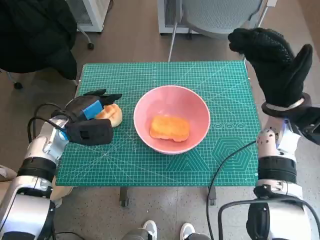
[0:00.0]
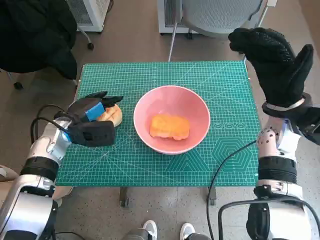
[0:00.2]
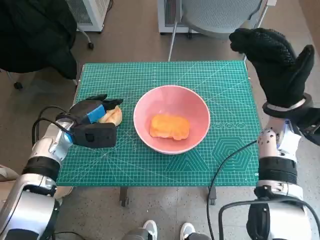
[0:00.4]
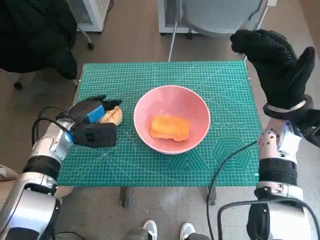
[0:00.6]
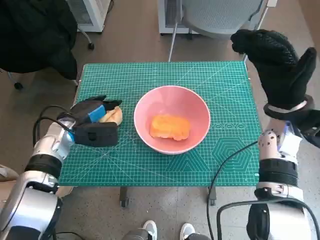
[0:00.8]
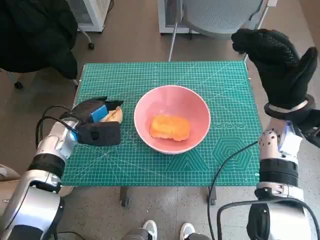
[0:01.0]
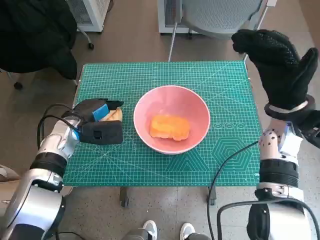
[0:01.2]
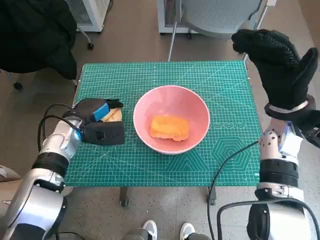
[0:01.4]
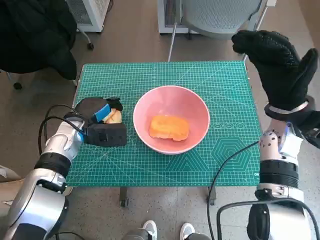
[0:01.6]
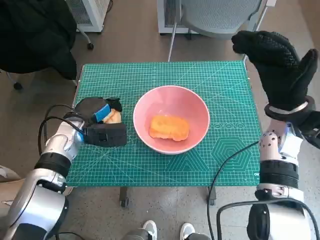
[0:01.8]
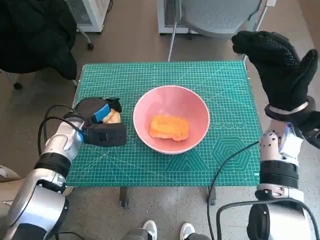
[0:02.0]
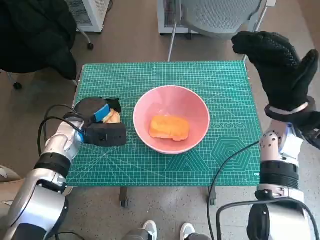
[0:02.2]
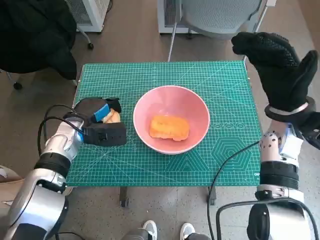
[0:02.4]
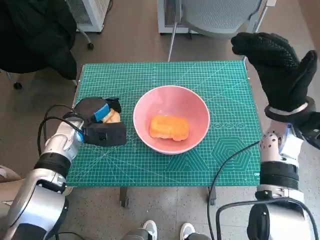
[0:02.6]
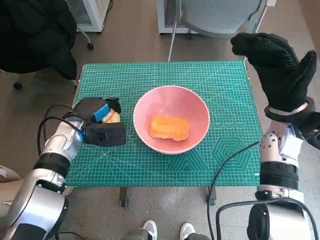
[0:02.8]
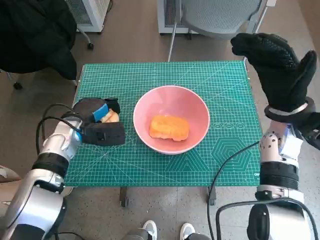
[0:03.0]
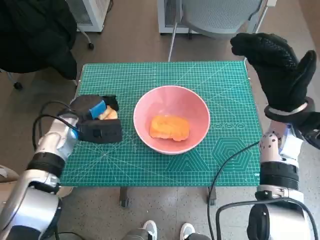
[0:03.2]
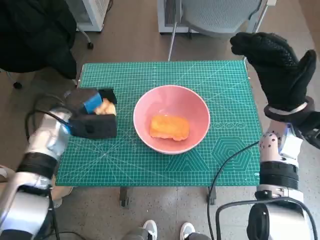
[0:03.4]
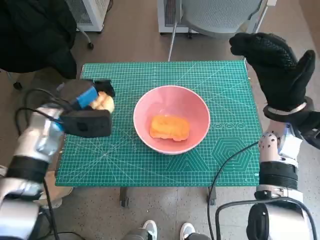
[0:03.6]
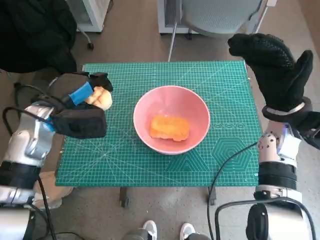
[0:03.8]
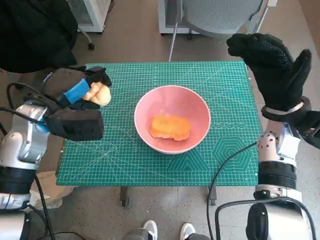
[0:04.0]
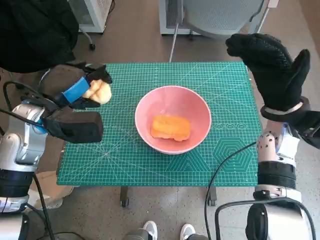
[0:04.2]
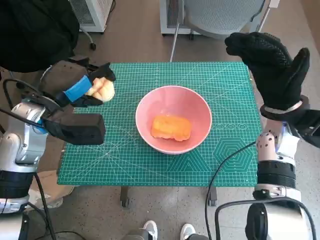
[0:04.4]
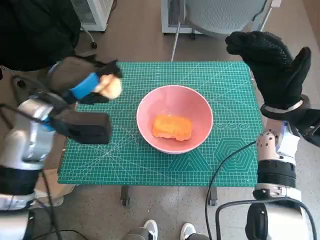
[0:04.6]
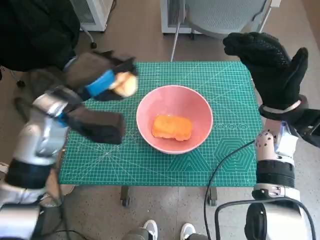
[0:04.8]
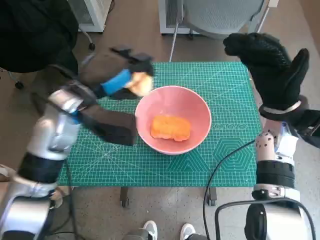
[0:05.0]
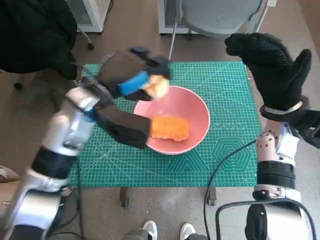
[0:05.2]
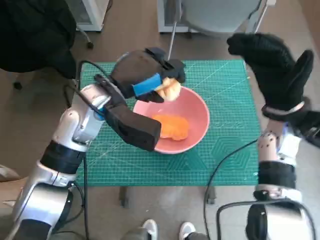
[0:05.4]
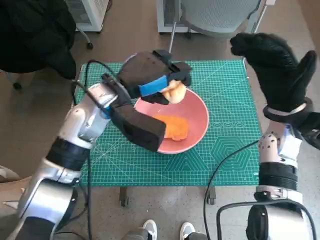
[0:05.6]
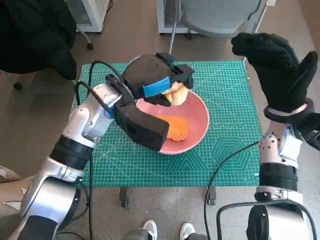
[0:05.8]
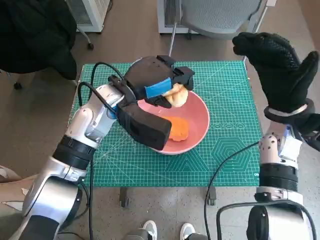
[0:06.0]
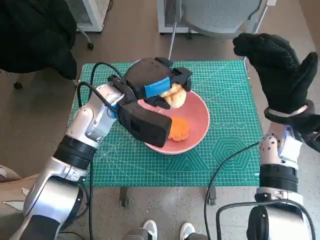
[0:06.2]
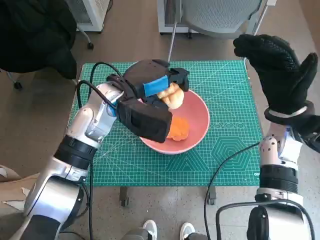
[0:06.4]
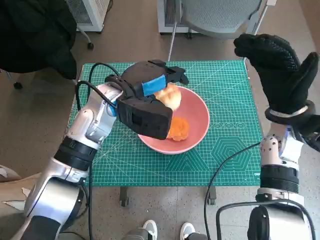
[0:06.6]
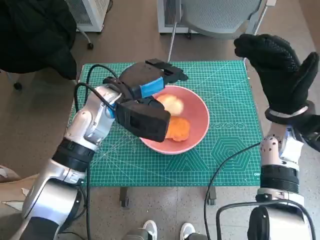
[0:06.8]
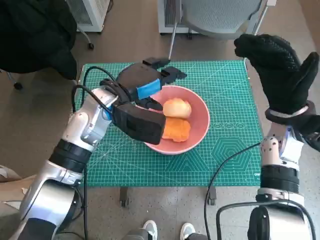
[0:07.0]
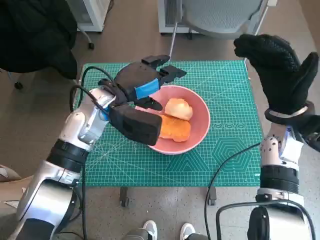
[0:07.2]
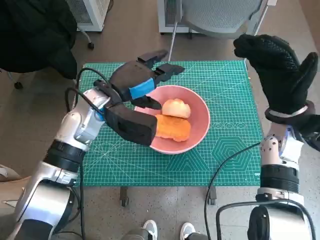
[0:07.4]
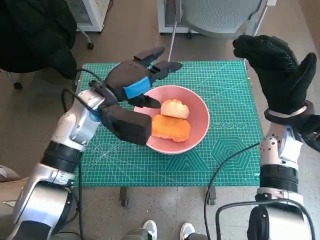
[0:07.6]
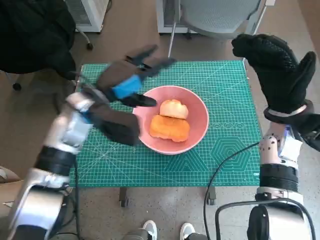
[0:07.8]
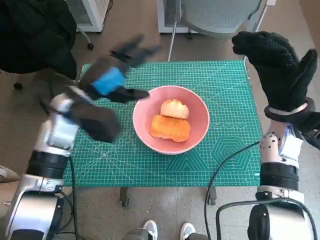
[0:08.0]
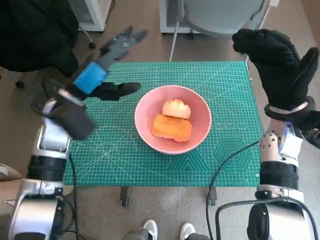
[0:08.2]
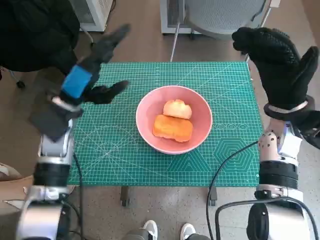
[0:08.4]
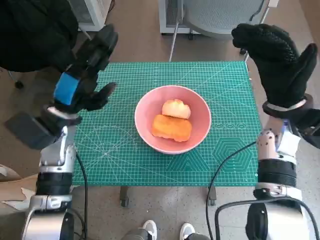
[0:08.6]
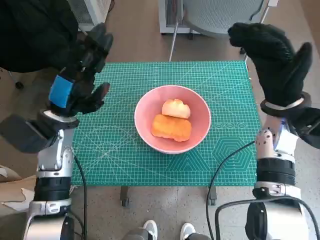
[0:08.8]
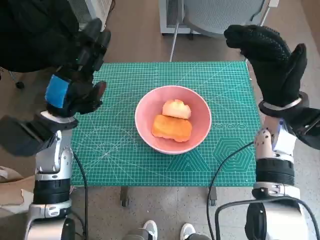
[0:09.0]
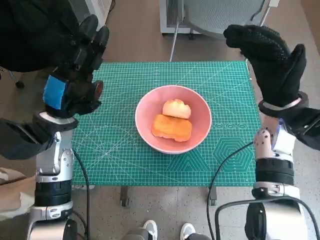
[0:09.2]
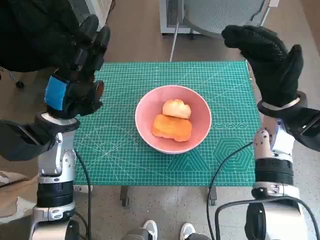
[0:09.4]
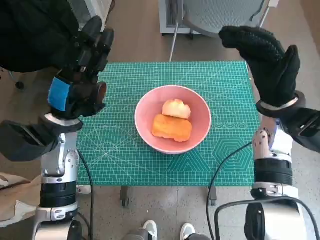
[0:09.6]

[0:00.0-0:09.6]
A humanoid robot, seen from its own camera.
Step, 0:00.0 to 0:02.6: Grasp the round bread with left hand.
Step, 0:02.8 to 0:07.2: Place the round bread in pink bowl with left hand.
0:00.0 to 0:01.6: There are only small adjustments of the hands.
0:01.6 to 0:03.2: Neither hand changes place.
0:03.2 to 0:04.8: The left hand moves upward, roughly 10 cm.
0:04.8 to 0:06.4: The left hand moves to the right, approximately 10 cm.
0:06.4 to 0:08.0: The left hand heads to the left, covering some 5 cm.
0:08.0 to 0:09.6: The left hand ends up about 5 cm from where it was.

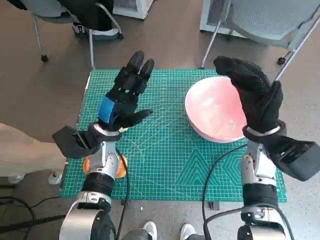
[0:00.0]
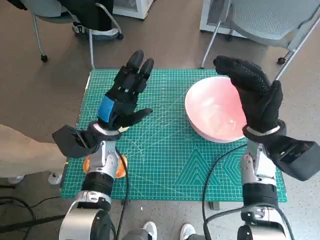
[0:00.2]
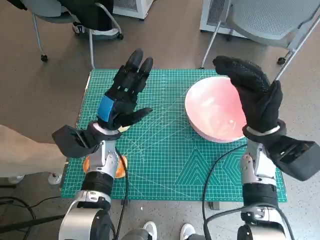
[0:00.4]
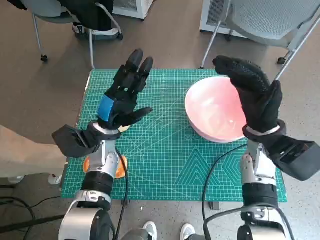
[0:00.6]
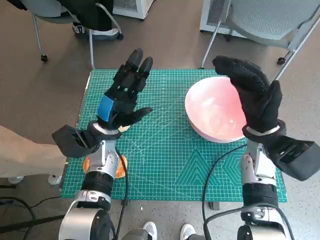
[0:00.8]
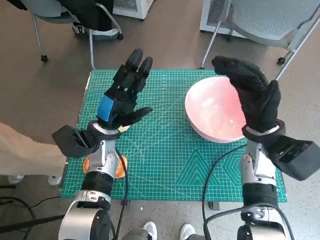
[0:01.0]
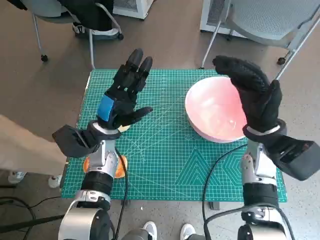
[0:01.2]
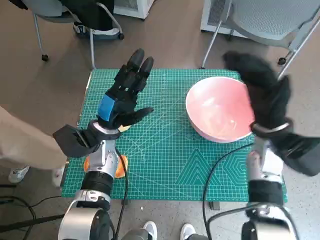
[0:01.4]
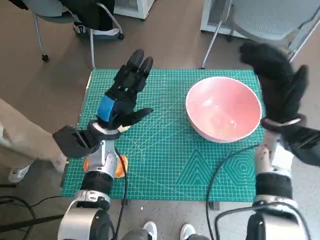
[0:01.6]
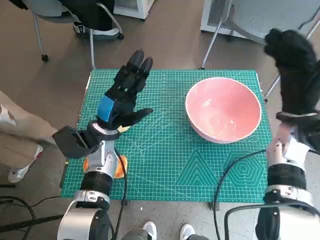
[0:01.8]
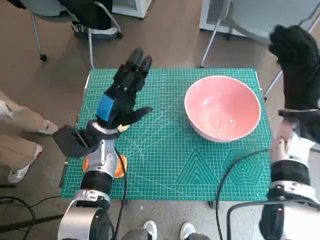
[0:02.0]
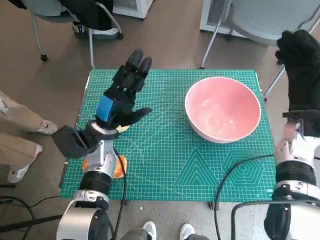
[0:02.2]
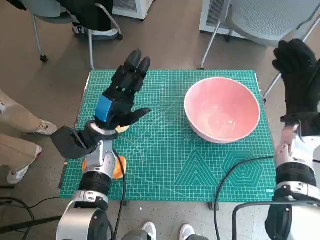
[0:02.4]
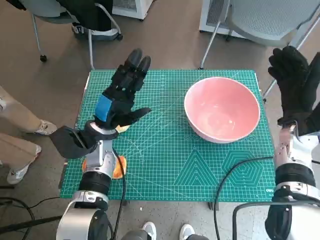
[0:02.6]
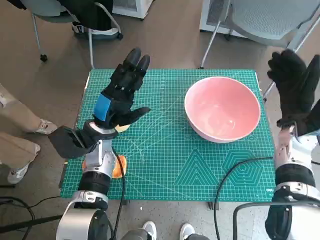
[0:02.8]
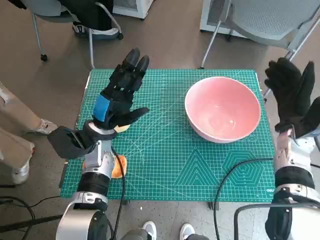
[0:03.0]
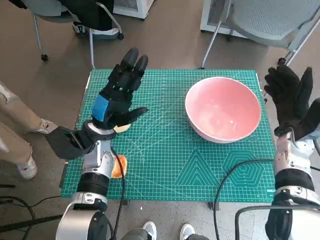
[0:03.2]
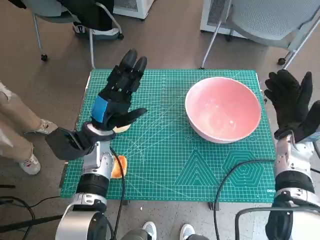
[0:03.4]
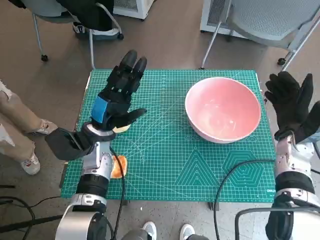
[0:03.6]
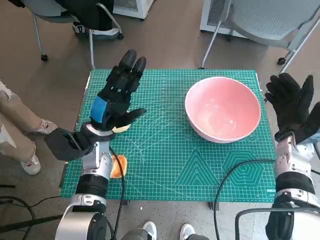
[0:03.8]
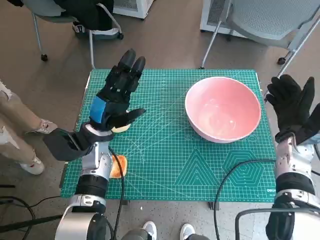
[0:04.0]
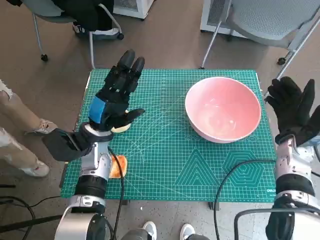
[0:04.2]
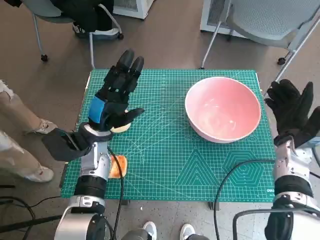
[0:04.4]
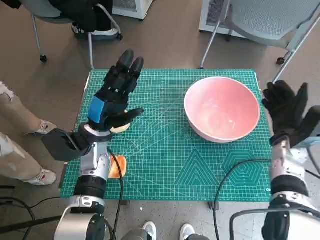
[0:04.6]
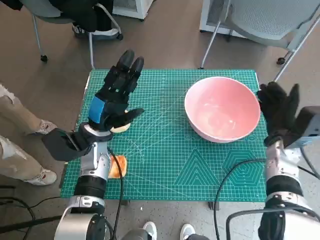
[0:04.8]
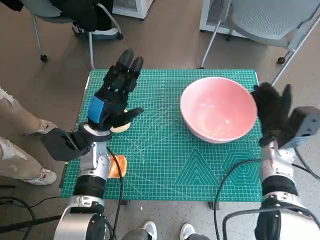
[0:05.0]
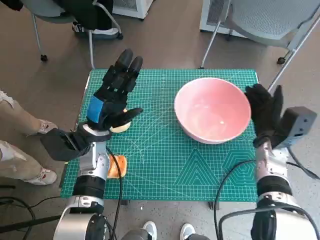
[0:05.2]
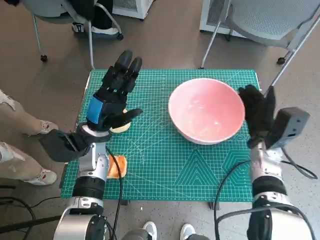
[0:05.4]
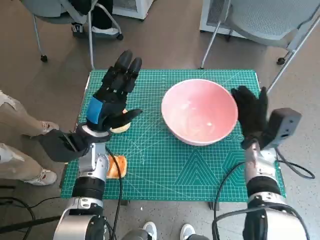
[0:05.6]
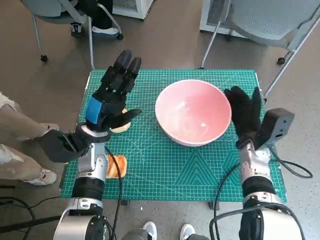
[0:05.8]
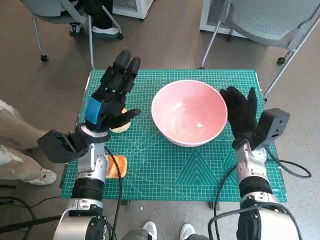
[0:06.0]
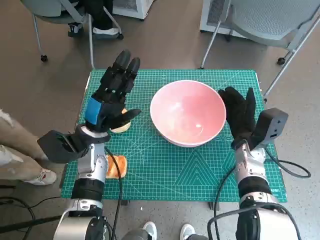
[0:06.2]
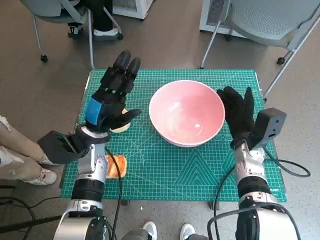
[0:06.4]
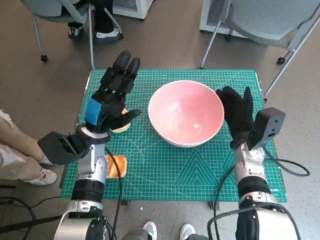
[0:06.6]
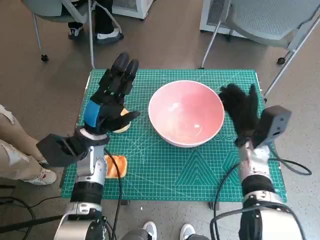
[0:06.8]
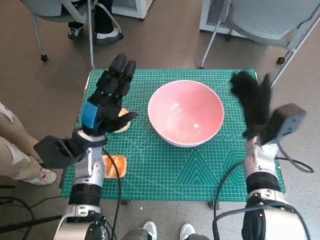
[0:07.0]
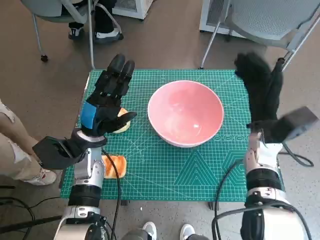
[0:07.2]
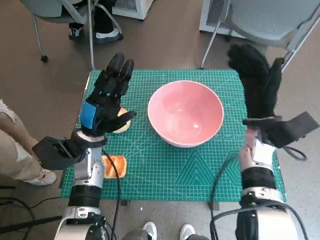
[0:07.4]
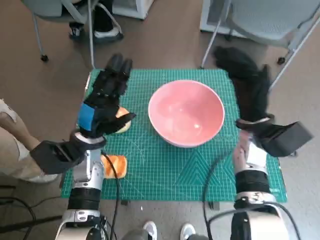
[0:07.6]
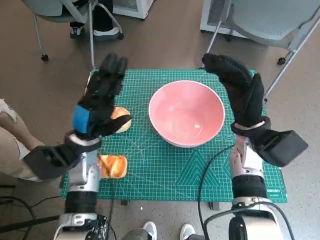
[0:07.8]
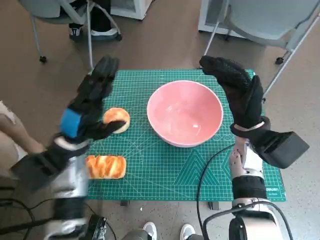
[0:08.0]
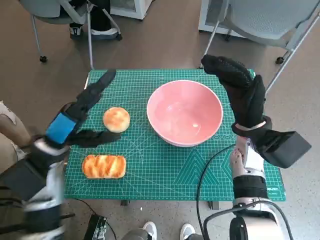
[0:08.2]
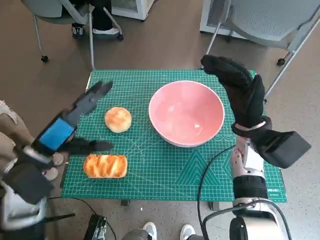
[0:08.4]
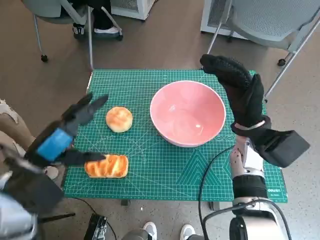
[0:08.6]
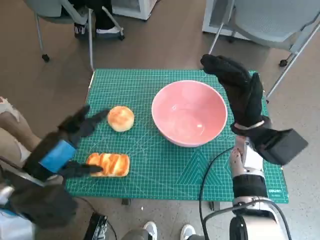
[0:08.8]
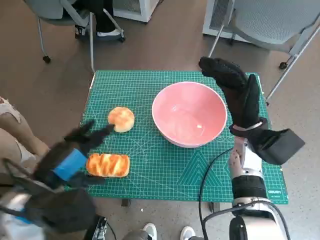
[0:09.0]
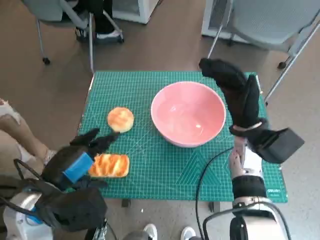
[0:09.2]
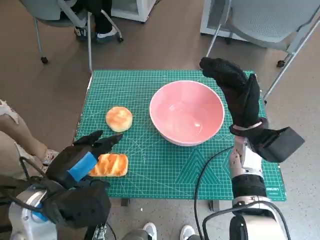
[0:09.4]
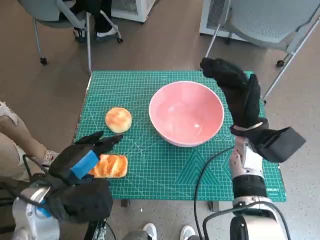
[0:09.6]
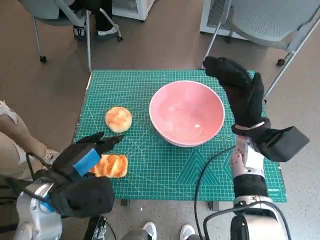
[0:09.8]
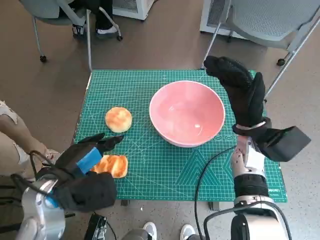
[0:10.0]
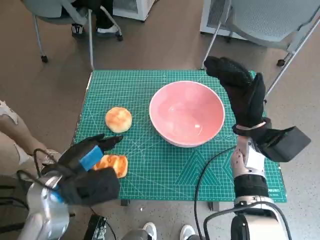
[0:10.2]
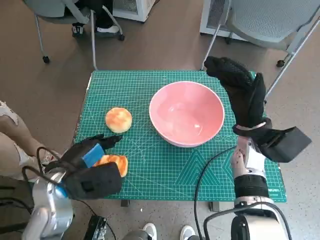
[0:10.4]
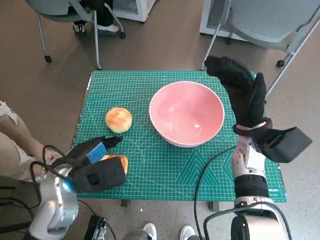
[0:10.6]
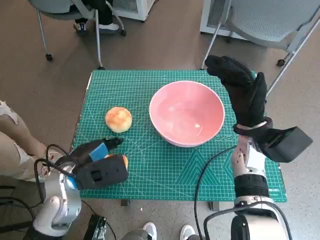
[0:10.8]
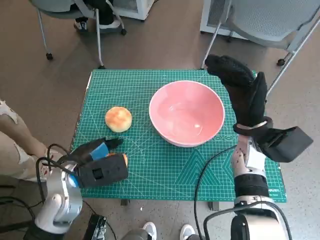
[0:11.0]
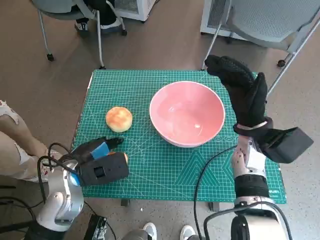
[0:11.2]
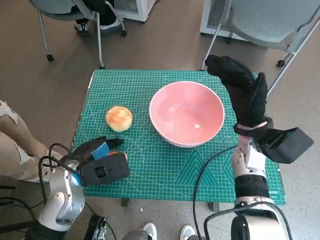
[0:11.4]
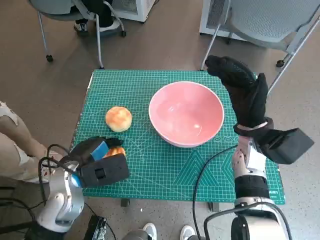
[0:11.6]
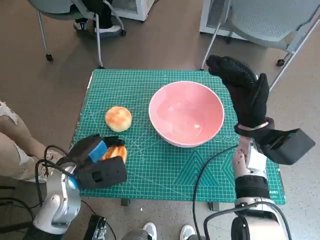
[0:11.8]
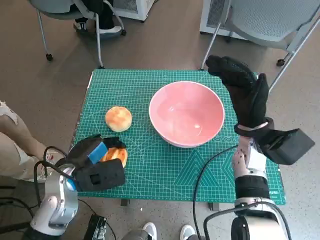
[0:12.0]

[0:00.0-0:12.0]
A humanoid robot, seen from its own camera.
Step, 0:00.0 to 0:06.8: Move the pink bowl to the center of table with right hand.
Step, 0:07.0 to 0:11.6: Grasp the long bread with left hand.
0:01.6 to 0:03.0: The right hand shifts by about 5 cm.
0:03.0 to 0:04.4: There are only small adjustments of the hands.
0:04.4 to 0:06.0: The right hand travels to the left by some 10 cm.
0:06.0 to 0:07.6: The right hand moves upward, about 10 cm.
0:07.6 to 0:09.0: The left hand heads backward and upward, covering some 15 cm.
0:09.0 to 0:10.4: The left hand changes place by roughly 5 cm.
0:10.4 to 0:12.0: The hands move only a little.

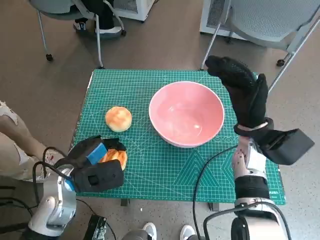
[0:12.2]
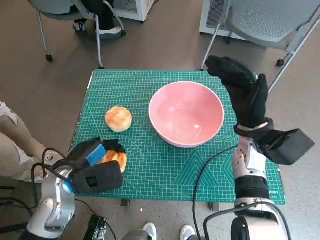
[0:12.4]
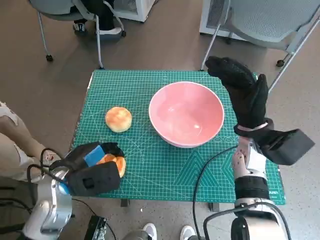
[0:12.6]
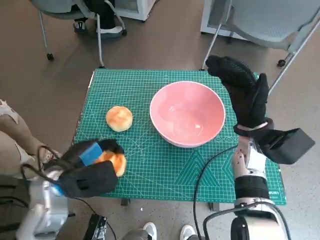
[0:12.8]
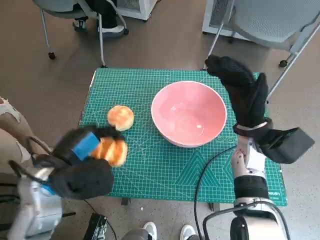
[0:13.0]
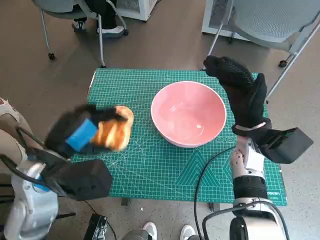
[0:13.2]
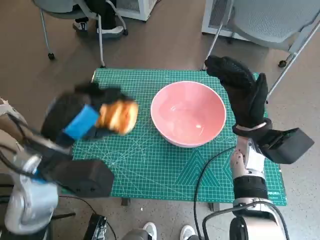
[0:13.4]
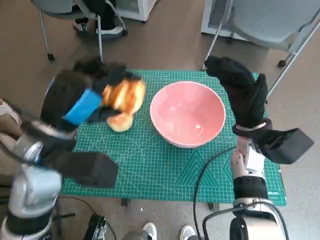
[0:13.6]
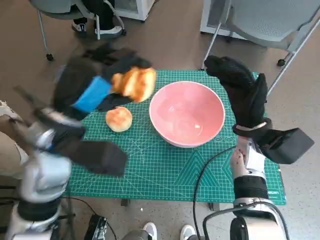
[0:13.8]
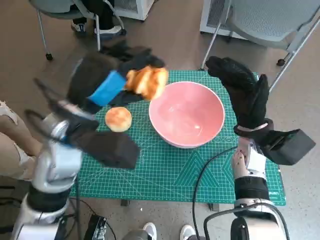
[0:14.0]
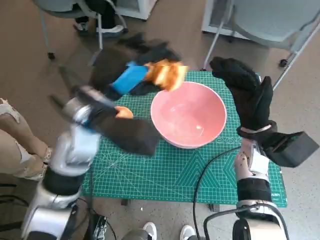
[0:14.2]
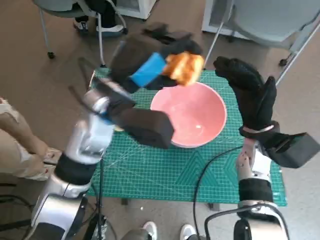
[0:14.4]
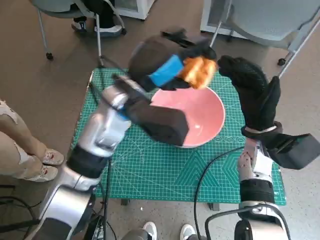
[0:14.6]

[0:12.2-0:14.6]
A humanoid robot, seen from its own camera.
0:12.2 to 0:13.4: The left hand travels upward by about 10 cm.
0:13.4 to 0:14.6: The left hand is displaced forward and to the right by approximately 15 cm.
